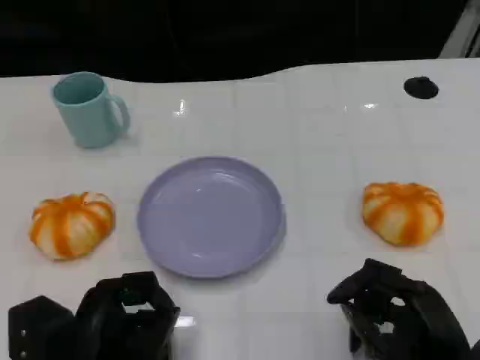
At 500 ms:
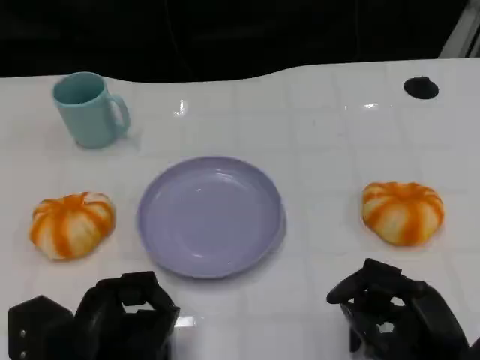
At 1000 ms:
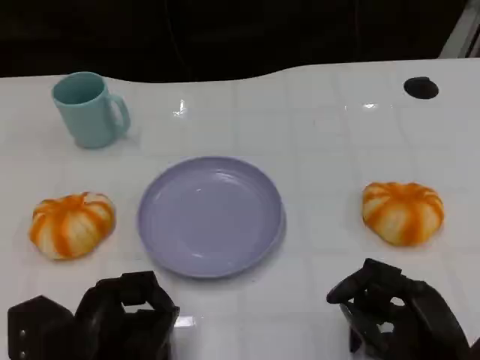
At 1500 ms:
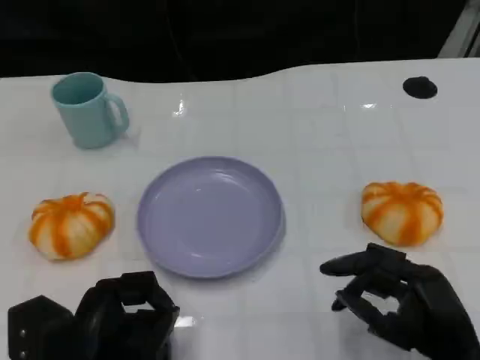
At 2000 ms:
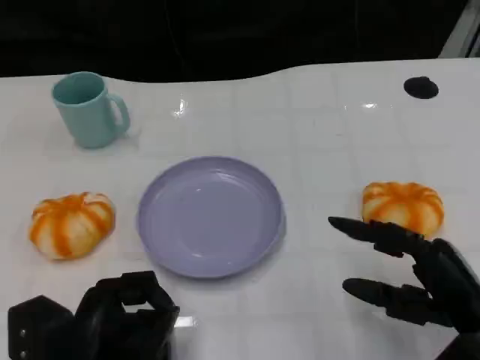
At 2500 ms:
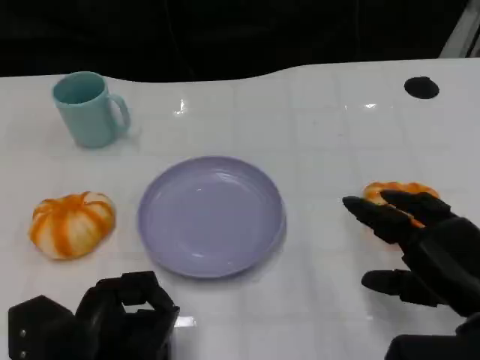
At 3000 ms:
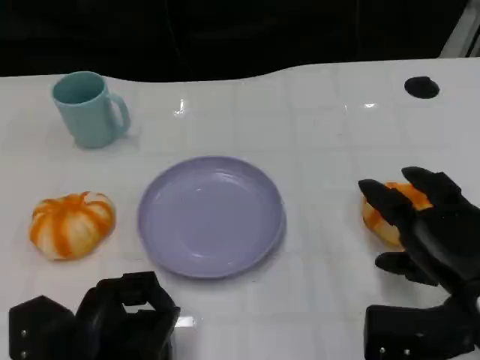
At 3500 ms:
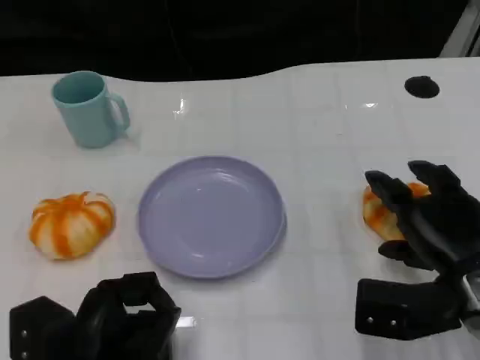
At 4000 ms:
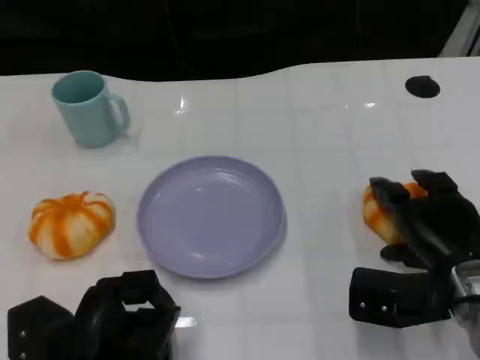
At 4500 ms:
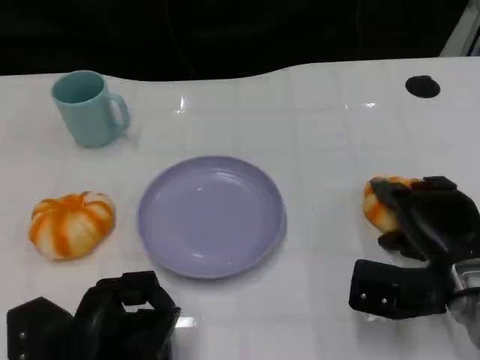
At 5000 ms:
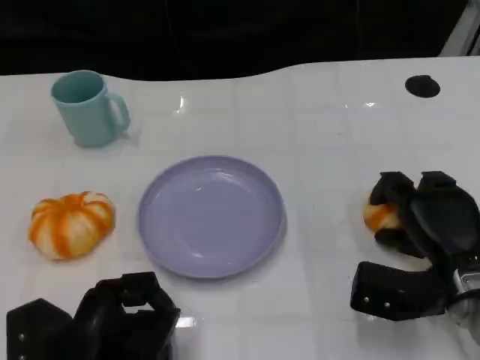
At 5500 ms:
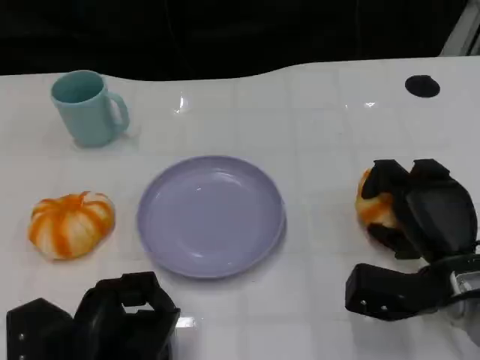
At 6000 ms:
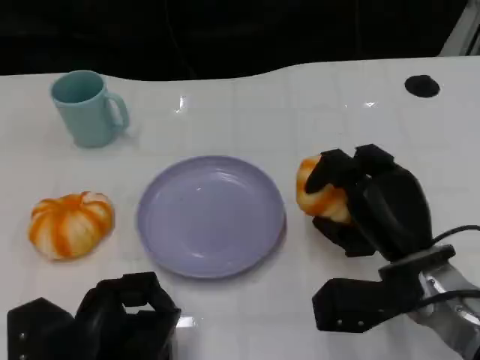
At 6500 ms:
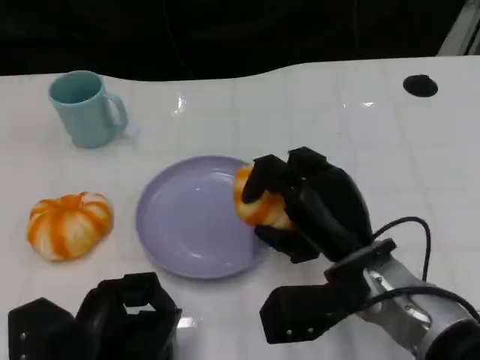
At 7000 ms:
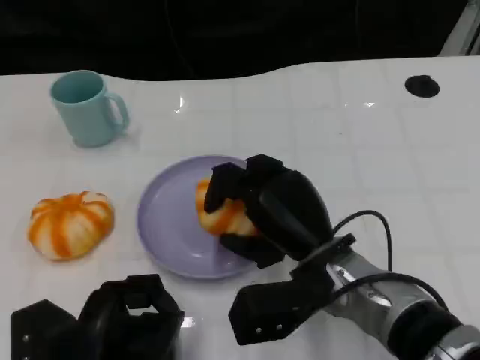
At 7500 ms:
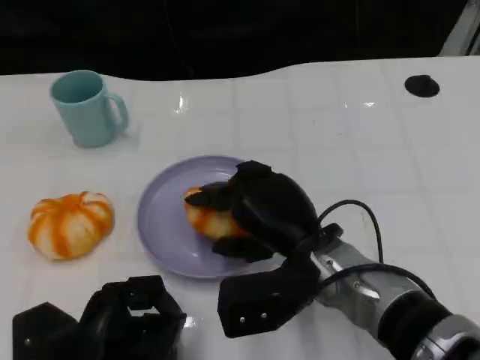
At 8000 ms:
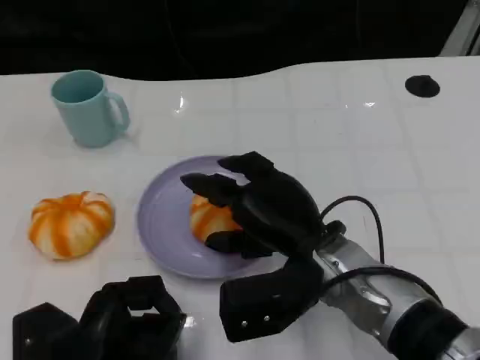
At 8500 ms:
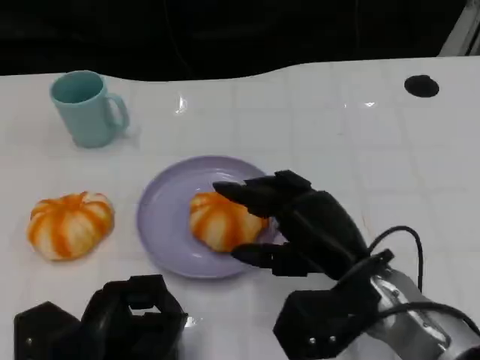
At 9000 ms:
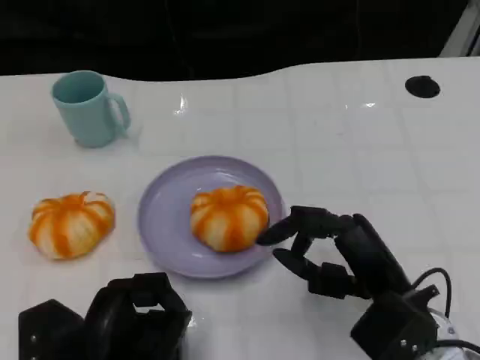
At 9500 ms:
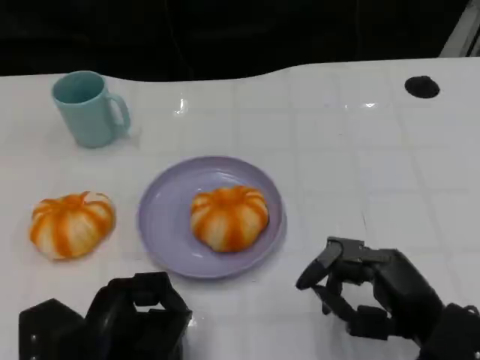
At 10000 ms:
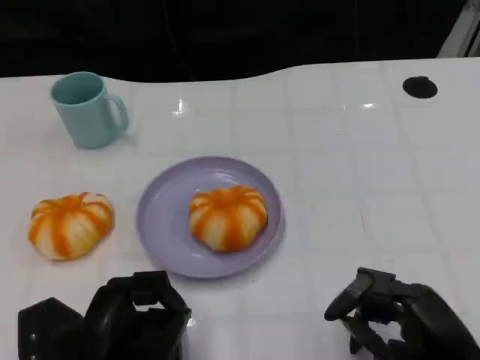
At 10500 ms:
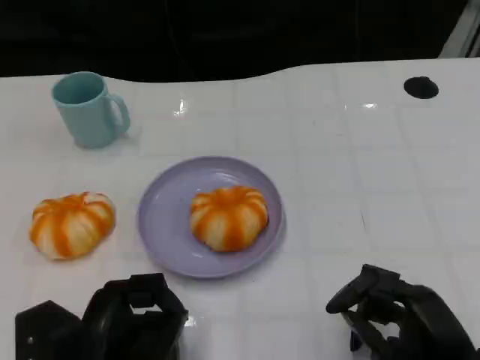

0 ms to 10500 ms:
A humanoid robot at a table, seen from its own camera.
Task of the whole recording: Grasp the bread from the table and place it into the plate.
0 ms to 2000 ms: The right hand changes place by about 5 cm.
2000 ms to 4000 ms: The right hand travels forward by roughly 5 cm.
4000 ms to 6500 ms: The right hand heads to the left, covering about 10 cm.
6500 ms to 8500 ms: There are only small adjustments of the hands.
8500 ms to 10500 ms: The right hand shifts some 15 cm to the right and backward.

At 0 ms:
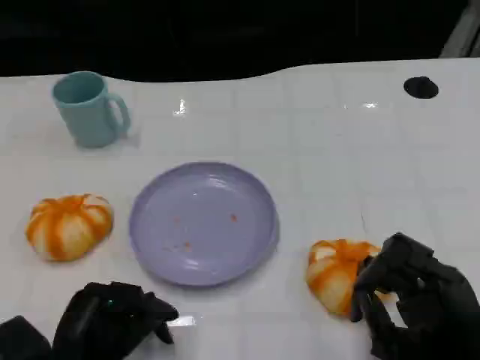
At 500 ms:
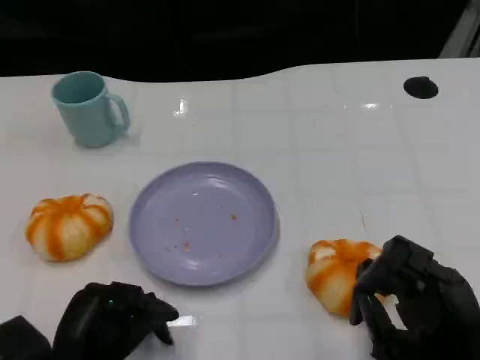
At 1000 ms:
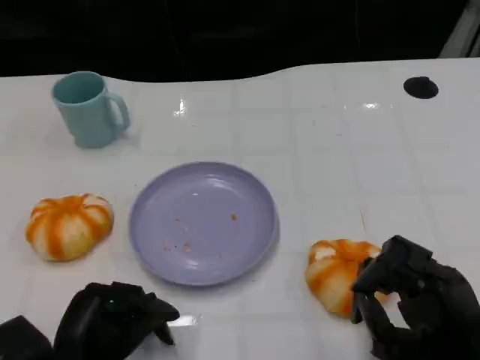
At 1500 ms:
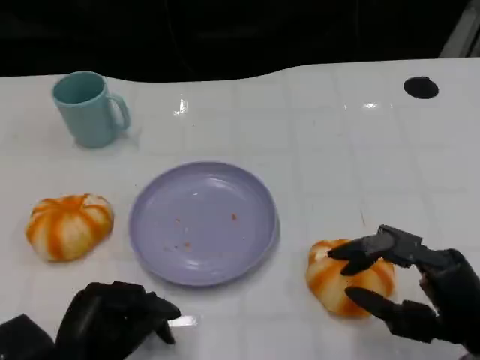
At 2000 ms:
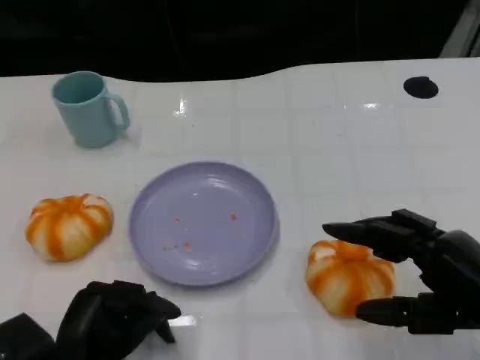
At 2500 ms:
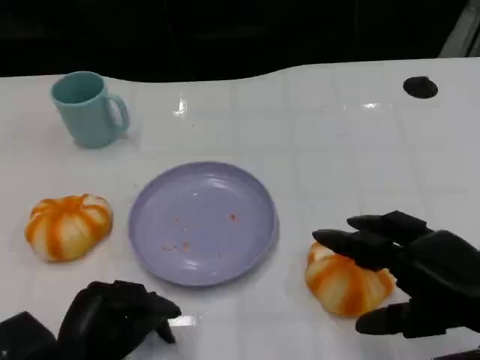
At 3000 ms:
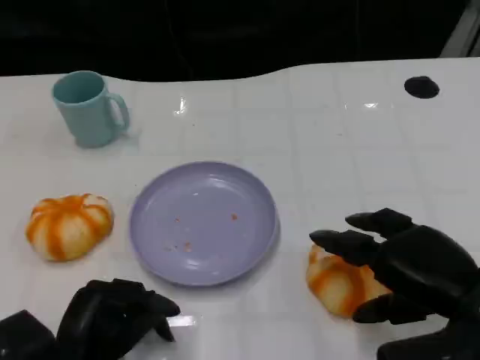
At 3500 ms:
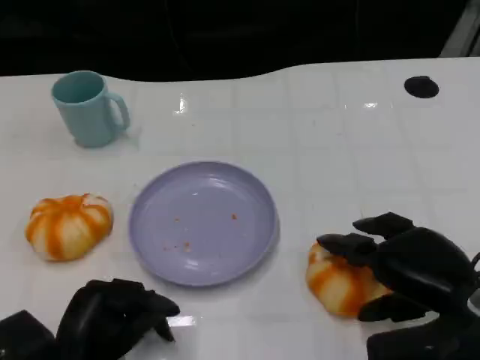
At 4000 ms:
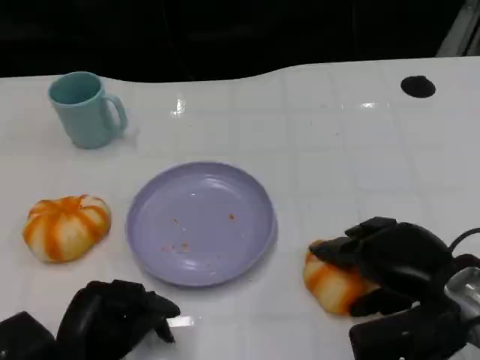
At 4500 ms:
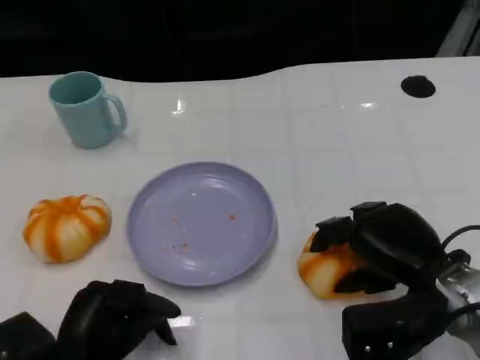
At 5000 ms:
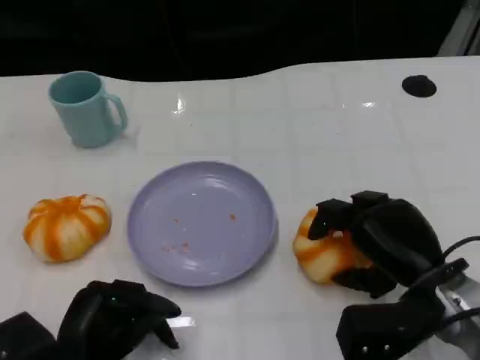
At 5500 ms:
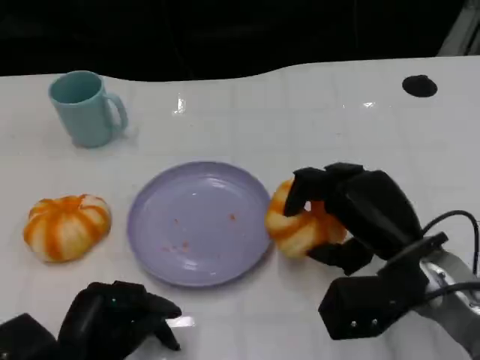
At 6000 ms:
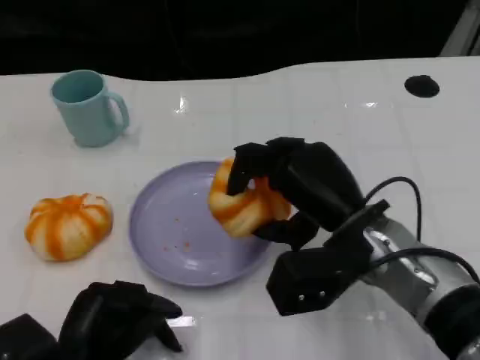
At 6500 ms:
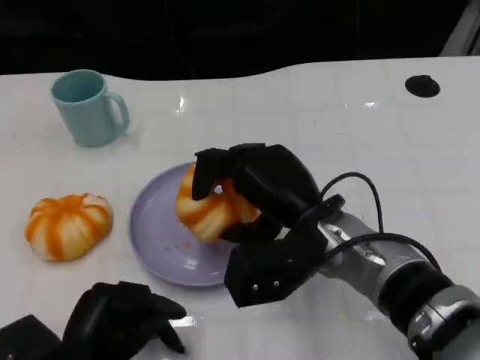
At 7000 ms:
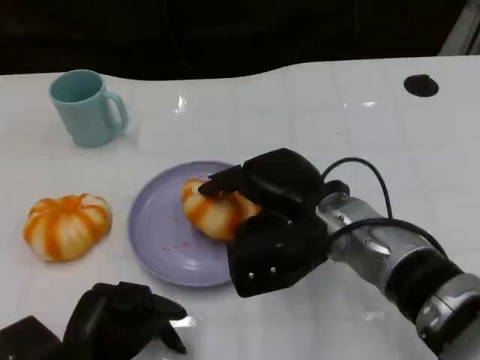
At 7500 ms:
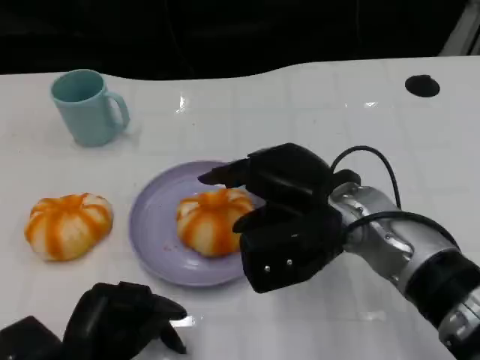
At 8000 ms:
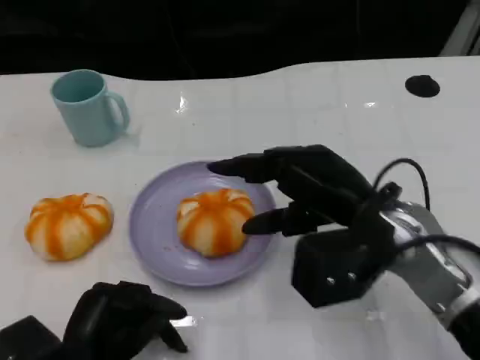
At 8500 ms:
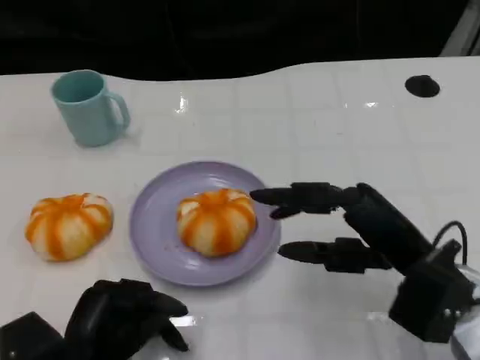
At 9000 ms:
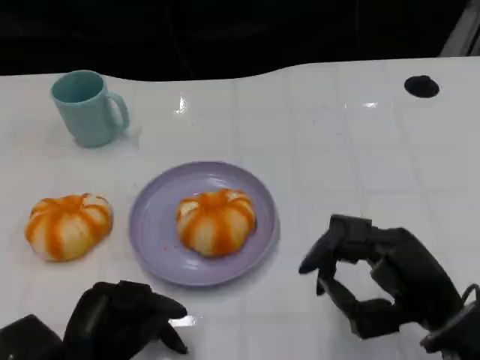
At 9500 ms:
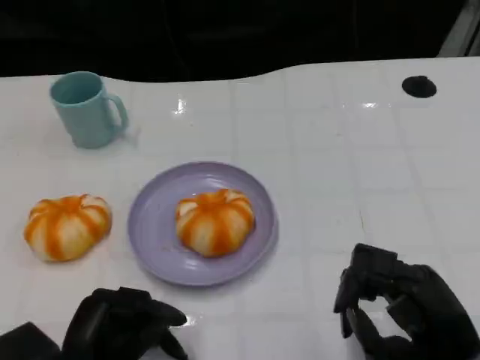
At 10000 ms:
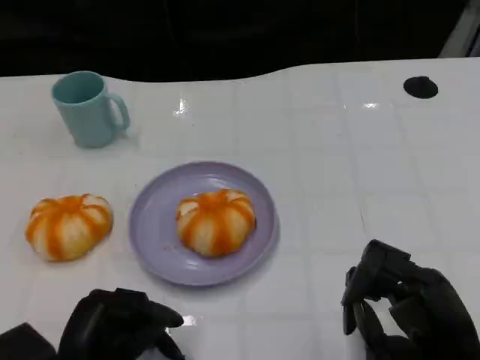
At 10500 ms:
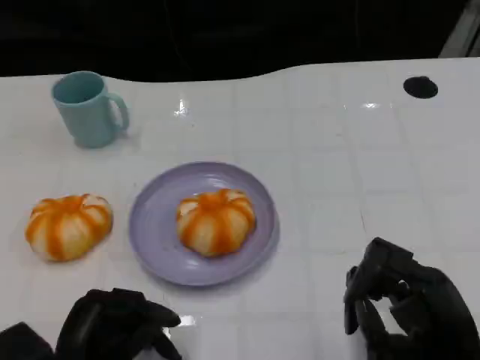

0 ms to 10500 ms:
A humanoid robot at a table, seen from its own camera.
Task of the whole recording: Grasp the bread from the table and place it into the plate.
0 ms to 2000 ms: The right hand is displaced upward by about 5 cm.
2000 ms to 4000 ms: The right hand is displaced forward by some 5 cm.
4000 ms to 6500 ms: The right hand moves to the left, some 15 cm.
6500 ms to 8500 ms: The right hand heads to the right and backward, covering roughly 10 cm.
8500 ms to 10500 ms: The right hand goes some 5 cm backward.

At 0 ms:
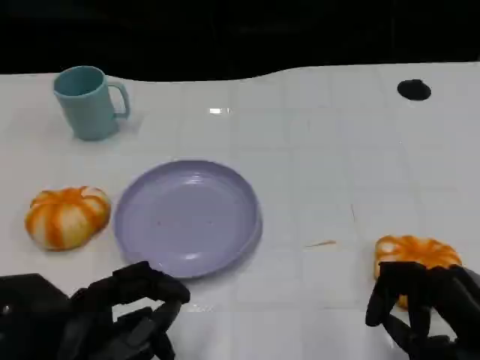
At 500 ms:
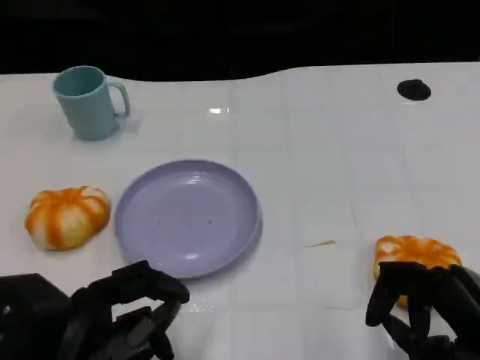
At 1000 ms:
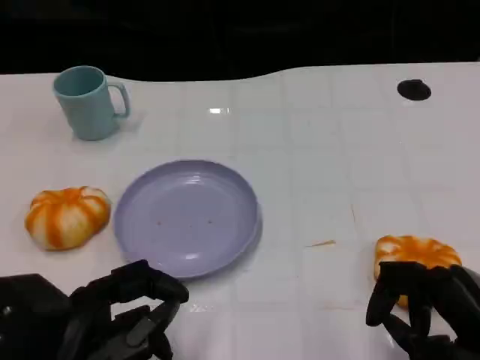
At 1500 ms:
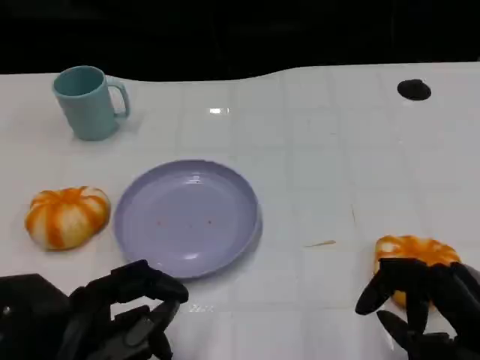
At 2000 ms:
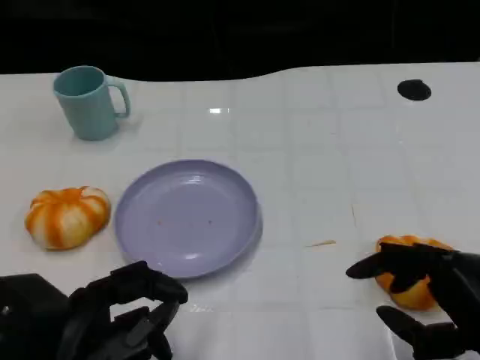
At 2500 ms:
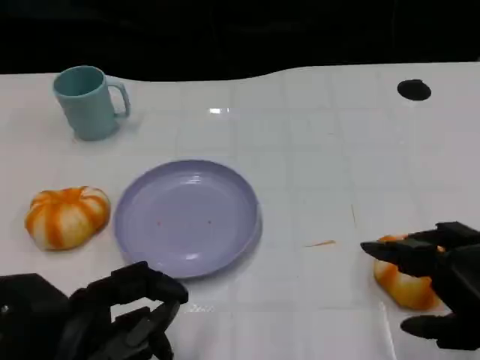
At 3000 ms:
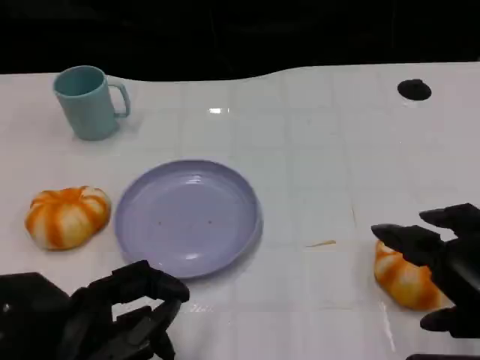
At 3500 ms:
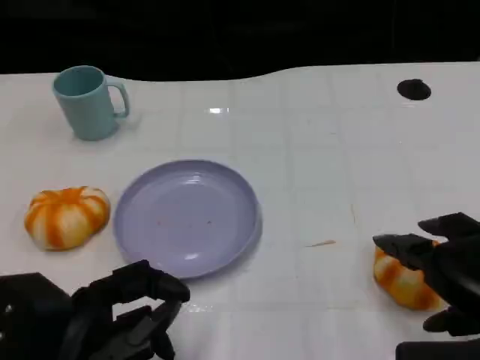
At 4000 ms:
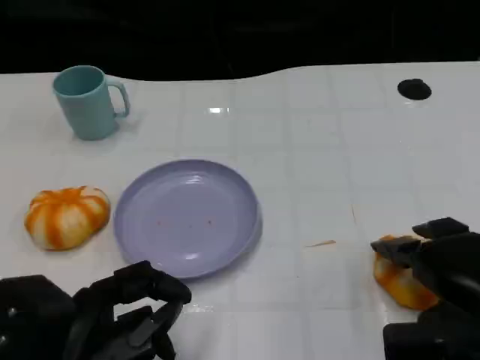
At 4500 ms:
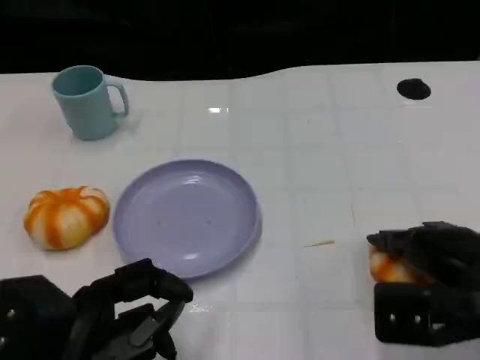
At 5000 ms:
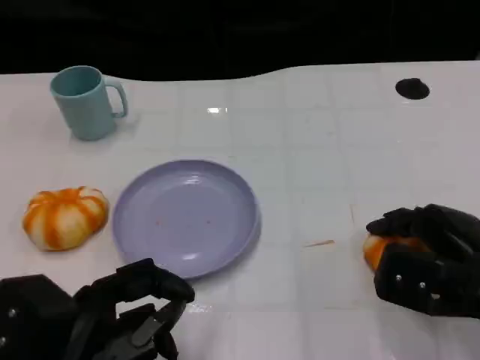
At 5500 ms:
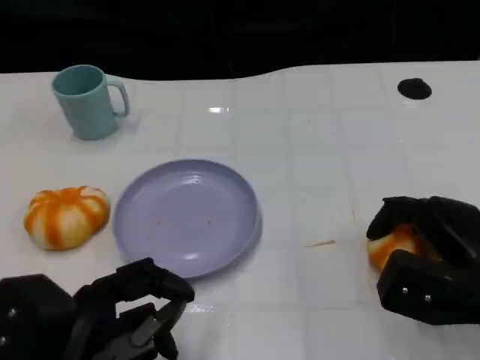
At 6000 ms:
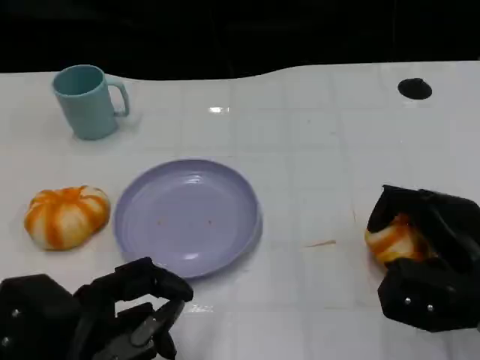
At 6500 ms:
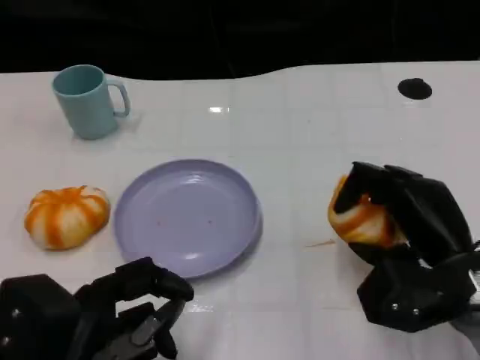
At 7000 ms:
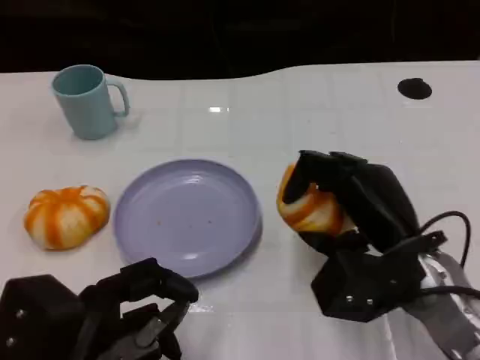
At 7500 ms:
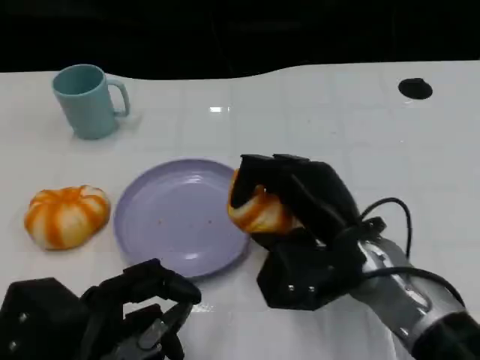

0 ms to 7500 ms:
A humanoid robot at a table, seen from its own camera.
Task of the whole recording: Grasp the bread from the table and place it into the plate.
0 ms to 2000 ms: The hands stay close to where they were, moving slightly.
2000 ms to 4000 ms: The right hand goes approximately 5 cm forward.
5500 ms to 7500 ms: The right hand shifts some 15 cm to the left.
